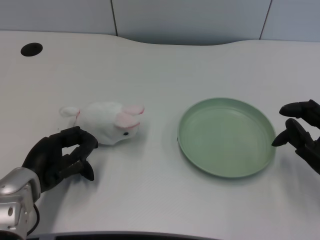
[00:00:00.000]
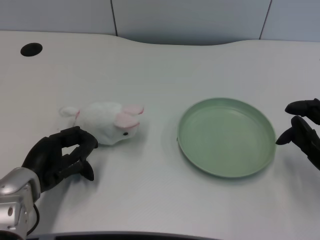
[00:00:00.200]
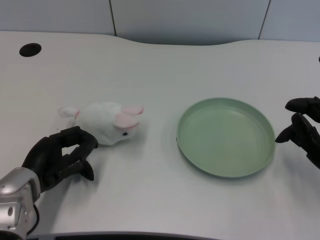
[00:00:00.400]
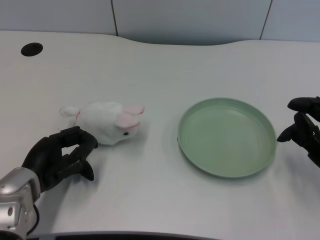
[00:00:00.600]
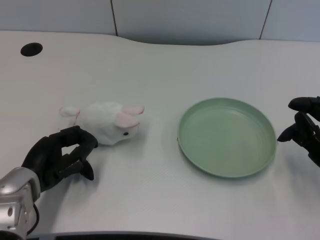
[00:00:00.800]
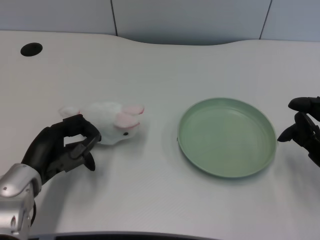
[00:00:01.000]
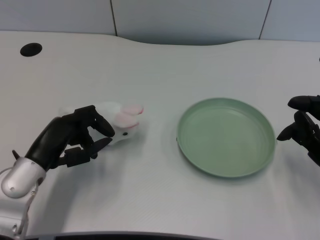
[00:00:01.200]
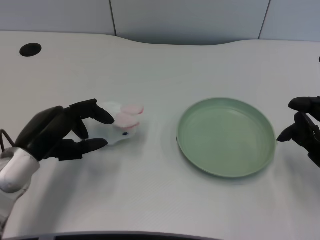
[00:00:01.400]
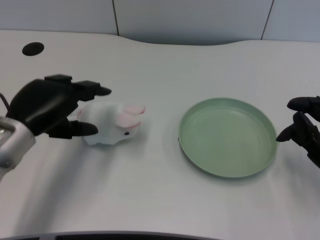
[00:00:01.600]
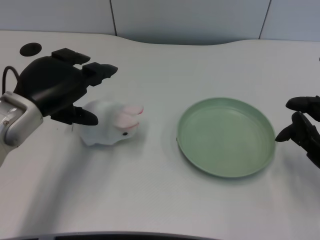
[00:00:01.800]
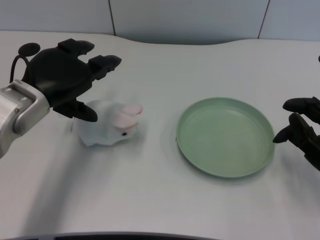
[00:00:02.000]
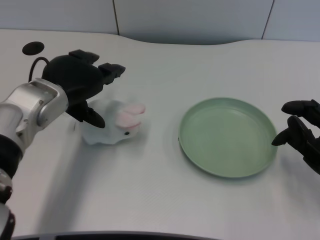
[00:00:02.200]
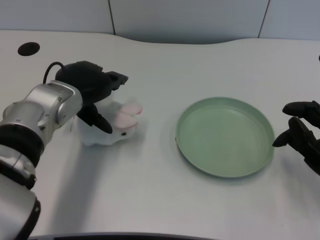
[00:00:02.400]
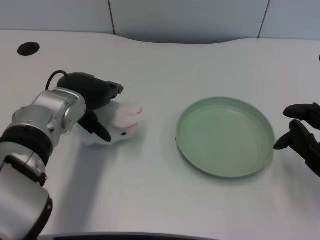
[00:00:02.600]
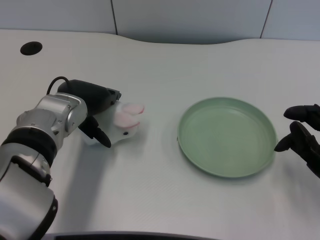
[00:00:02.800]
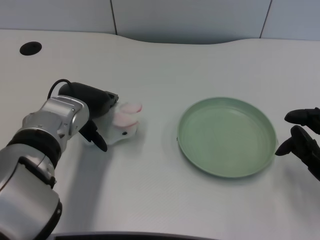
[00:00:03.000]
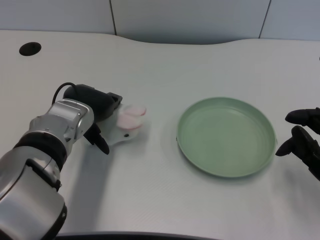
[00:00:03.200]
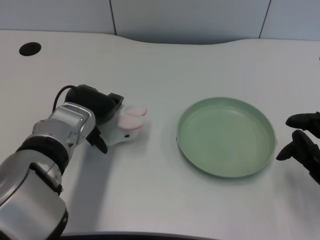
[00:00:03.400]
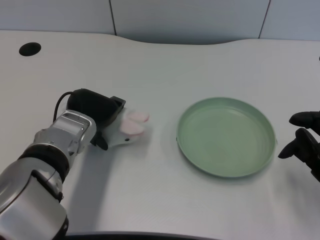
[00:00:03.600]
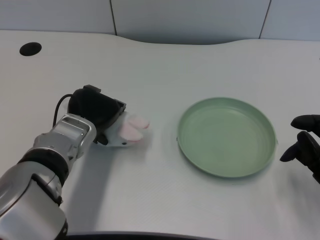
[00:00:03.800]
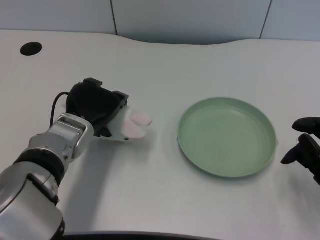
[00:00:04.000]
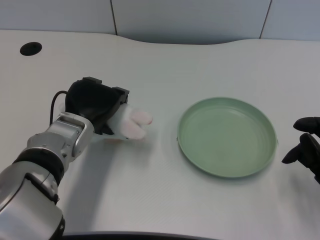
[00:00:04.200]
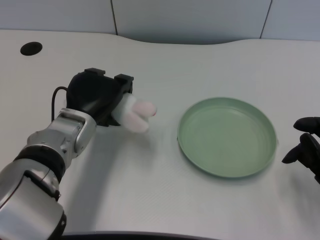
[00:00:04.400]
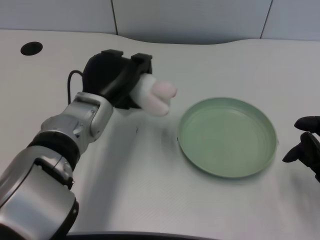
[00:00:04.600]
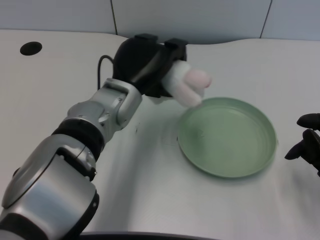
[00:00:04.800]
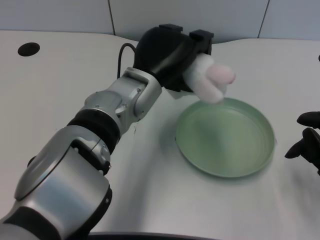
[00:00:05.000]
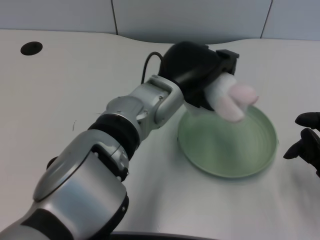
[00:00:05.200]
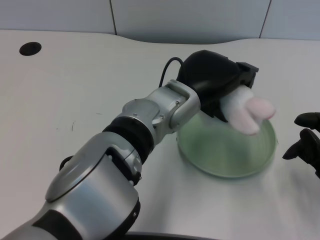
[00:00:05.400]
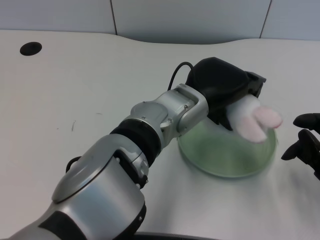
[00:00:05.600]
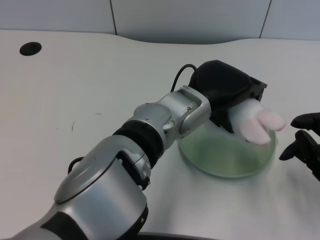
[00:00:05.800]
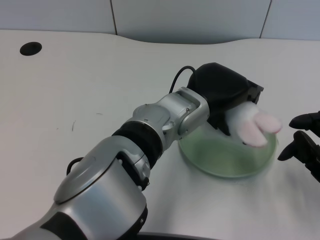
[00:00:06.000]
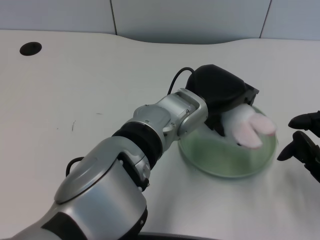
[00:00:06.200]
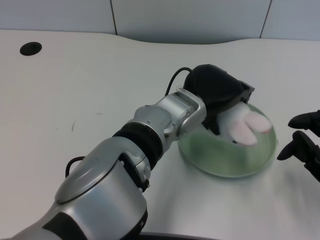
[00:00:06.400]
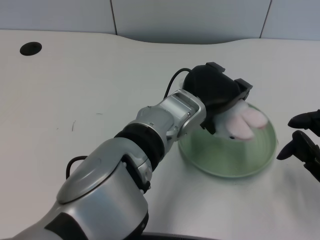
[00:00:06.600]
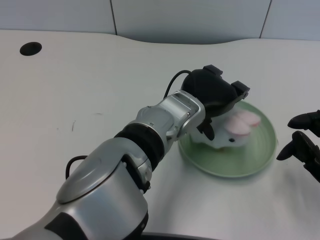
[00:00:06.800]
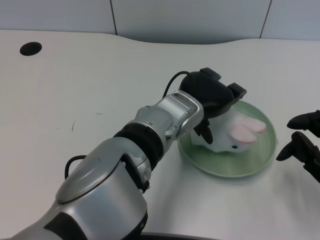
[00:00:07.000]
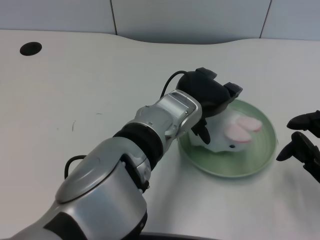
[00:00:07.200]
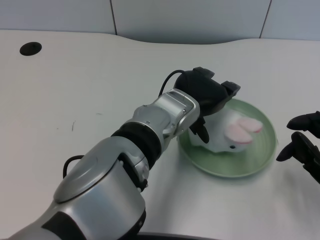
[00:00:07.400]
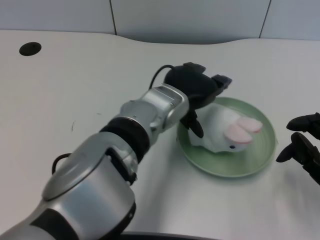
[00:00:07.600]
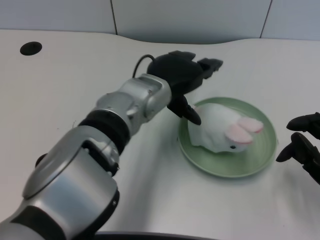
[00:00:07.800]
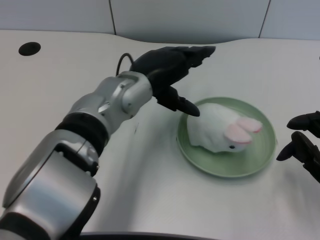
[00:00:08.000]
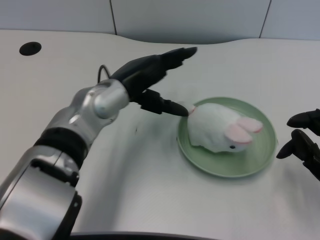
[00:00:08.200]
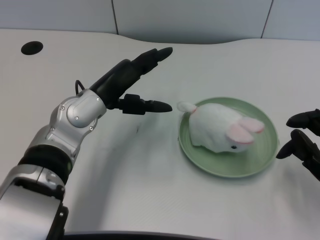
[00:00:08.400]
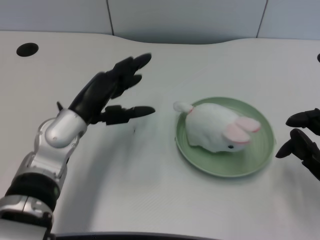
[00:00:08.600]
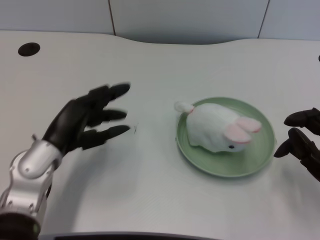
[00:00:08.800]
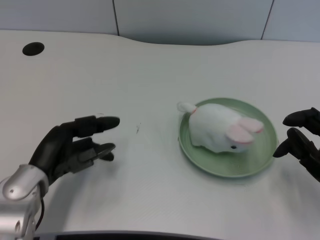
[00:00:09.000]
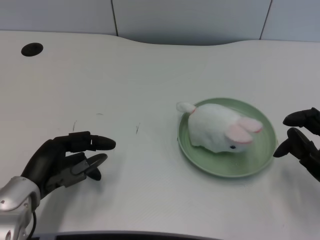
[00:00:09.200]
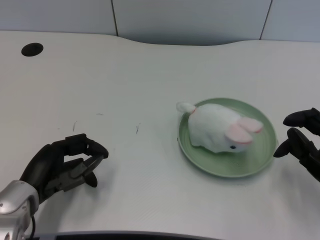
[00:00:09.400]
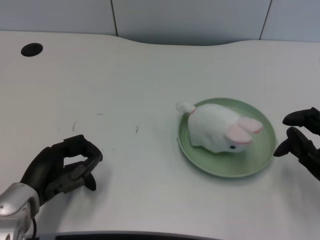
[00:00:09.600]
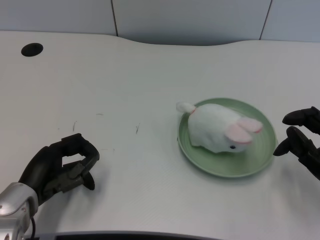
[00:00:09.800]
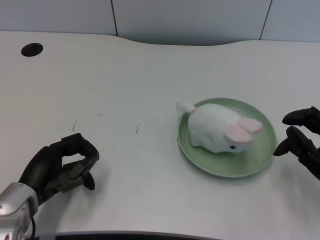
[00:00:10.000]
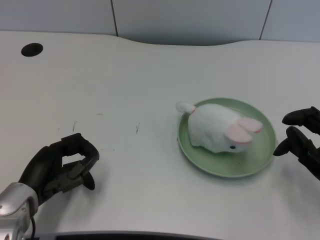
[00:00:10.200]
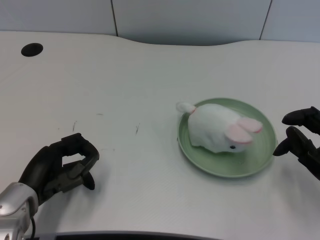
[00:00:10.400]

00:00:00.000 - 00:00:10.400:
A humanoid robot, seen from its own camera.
Task of the whole recording: pick up the rabbit doll from the table and place it on the plate.
Step, 00:00:01.000 - 00:00:04.200: Grasp the rabbit doll with the left gripper.
Step, 00:00:04.400 - 00:00:06.800: Place the rabbit doll into the plate with the left gripper.
00:00:01.400 - 00:00:03.000: The left hand travels forward and to the right by some 10 cm.
00:00:04.400 - 00:00:06.000: The left hand goes about 15 cm to the right.
00:00:06.000 - 00:00:07.400: The hands stay close to where they were, moving slightly.
00:00:07.400 - 00:00:09.000: The left hand goes approximately 20 cm to the left.
00:00:09.000 - 00:00:10.400: There are only small adjustments of the hands.
